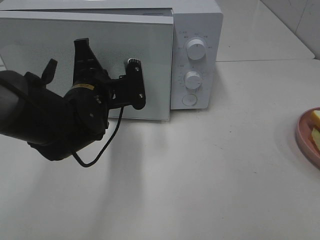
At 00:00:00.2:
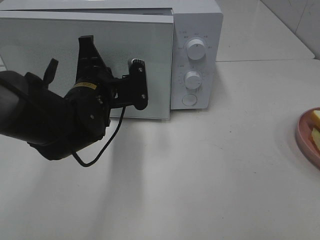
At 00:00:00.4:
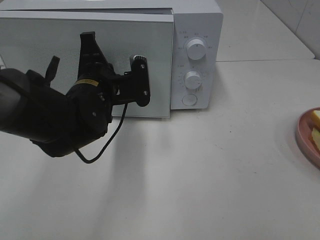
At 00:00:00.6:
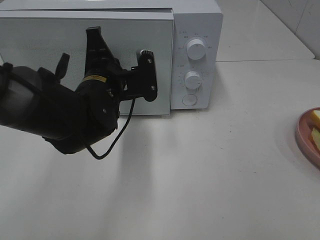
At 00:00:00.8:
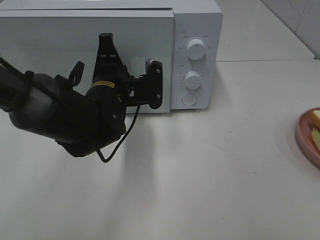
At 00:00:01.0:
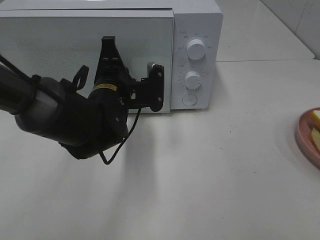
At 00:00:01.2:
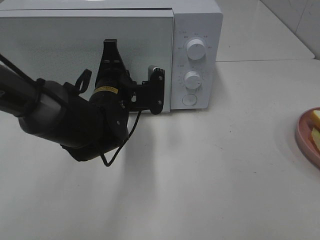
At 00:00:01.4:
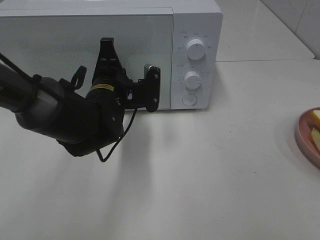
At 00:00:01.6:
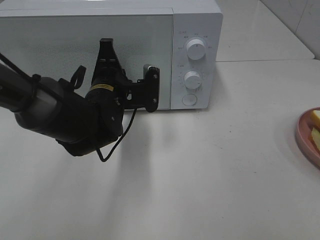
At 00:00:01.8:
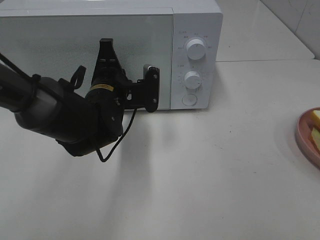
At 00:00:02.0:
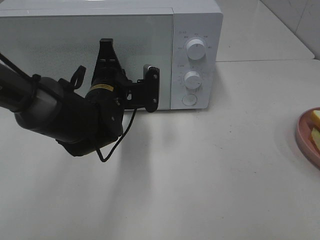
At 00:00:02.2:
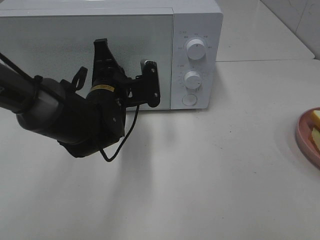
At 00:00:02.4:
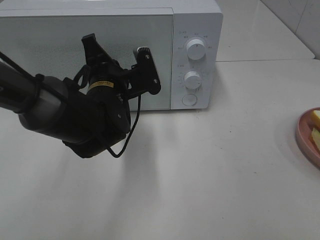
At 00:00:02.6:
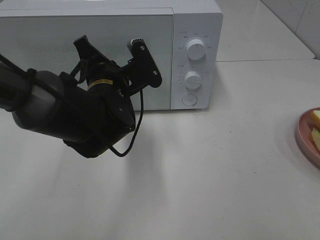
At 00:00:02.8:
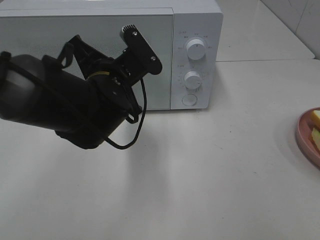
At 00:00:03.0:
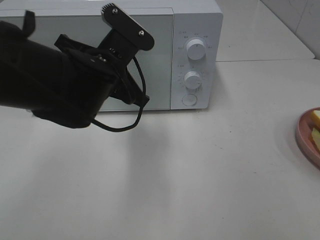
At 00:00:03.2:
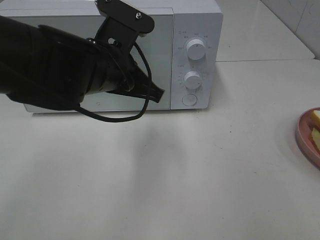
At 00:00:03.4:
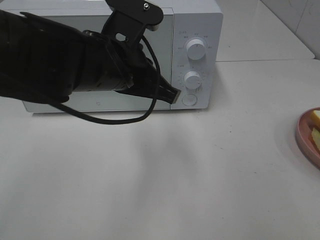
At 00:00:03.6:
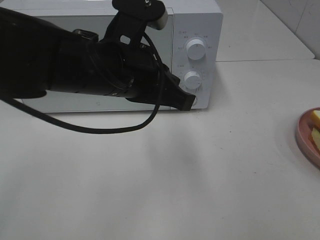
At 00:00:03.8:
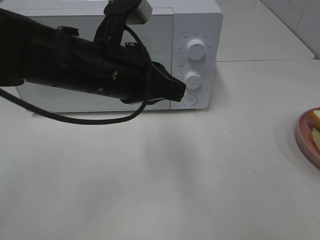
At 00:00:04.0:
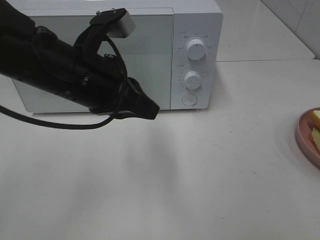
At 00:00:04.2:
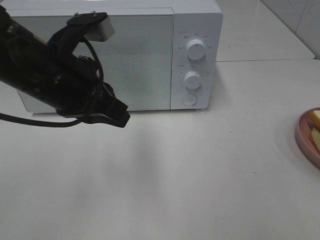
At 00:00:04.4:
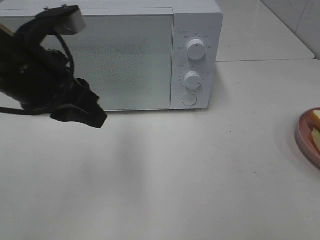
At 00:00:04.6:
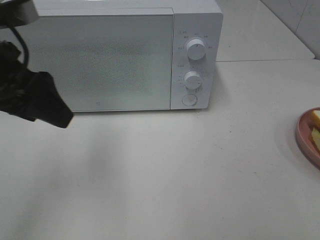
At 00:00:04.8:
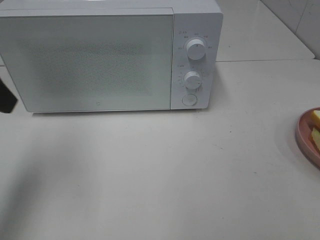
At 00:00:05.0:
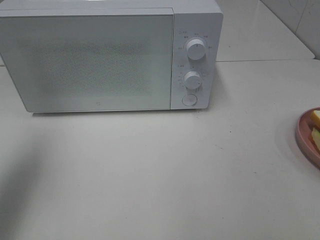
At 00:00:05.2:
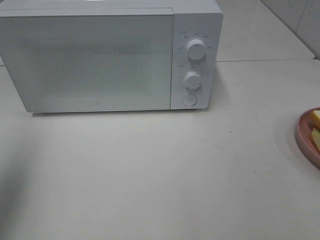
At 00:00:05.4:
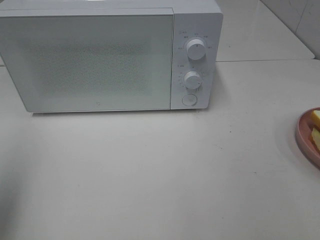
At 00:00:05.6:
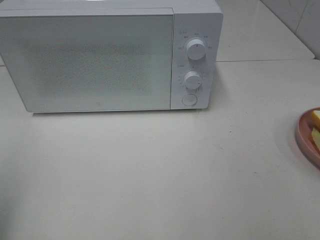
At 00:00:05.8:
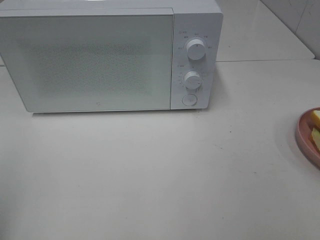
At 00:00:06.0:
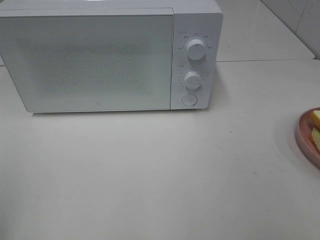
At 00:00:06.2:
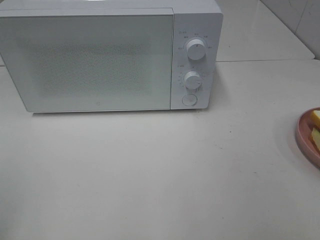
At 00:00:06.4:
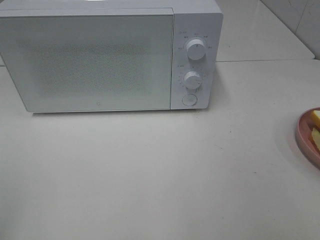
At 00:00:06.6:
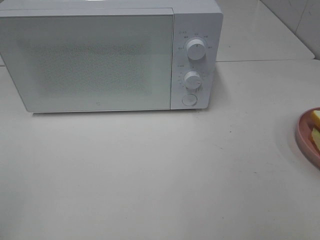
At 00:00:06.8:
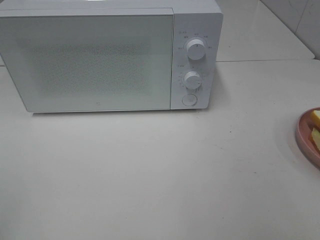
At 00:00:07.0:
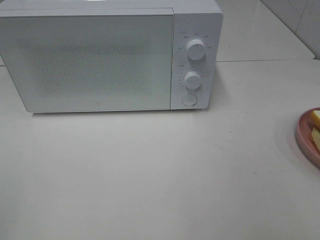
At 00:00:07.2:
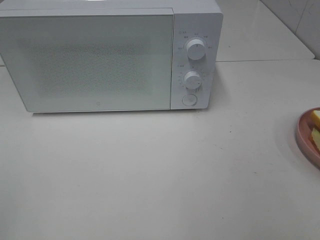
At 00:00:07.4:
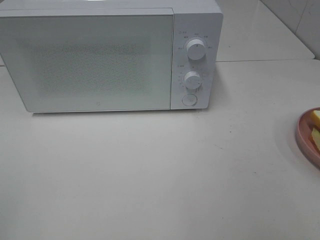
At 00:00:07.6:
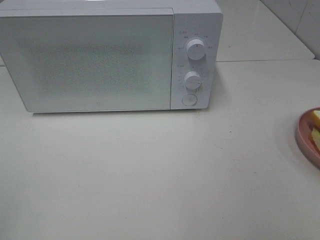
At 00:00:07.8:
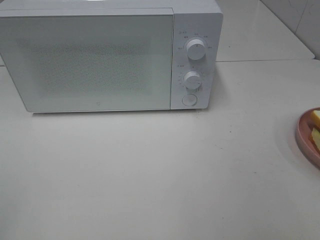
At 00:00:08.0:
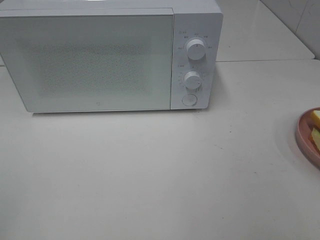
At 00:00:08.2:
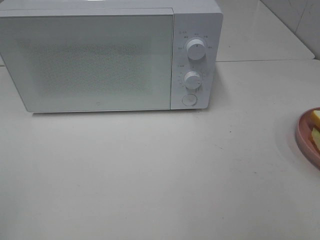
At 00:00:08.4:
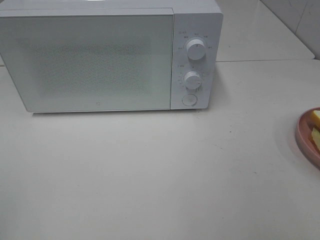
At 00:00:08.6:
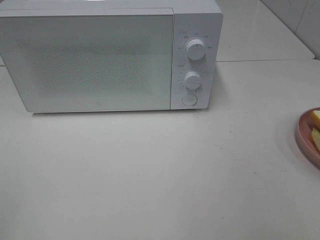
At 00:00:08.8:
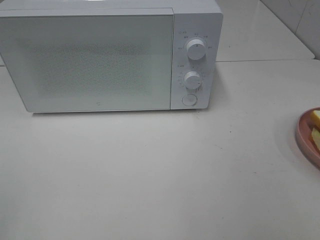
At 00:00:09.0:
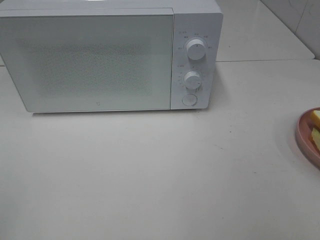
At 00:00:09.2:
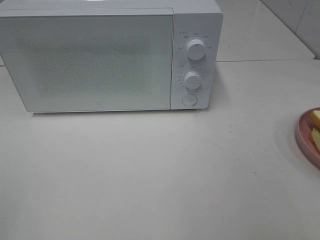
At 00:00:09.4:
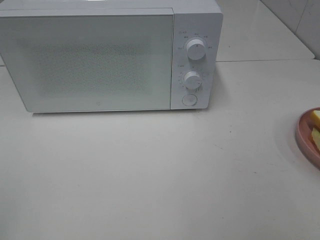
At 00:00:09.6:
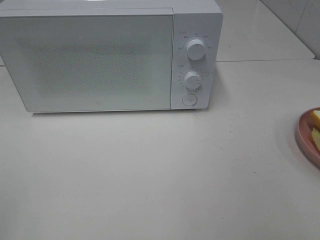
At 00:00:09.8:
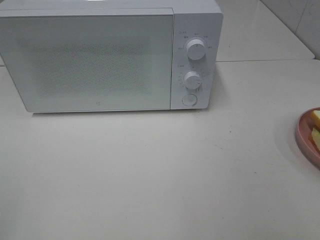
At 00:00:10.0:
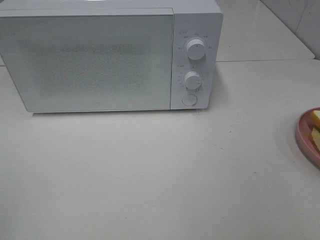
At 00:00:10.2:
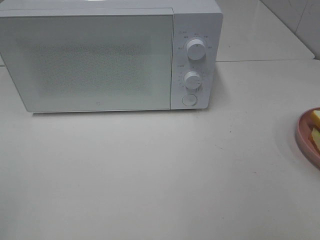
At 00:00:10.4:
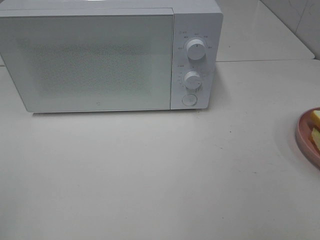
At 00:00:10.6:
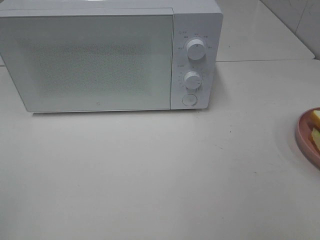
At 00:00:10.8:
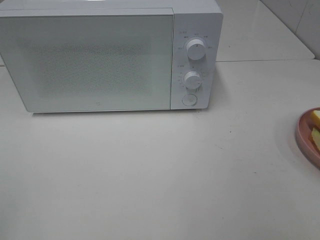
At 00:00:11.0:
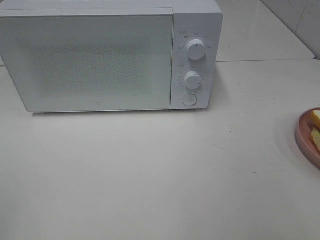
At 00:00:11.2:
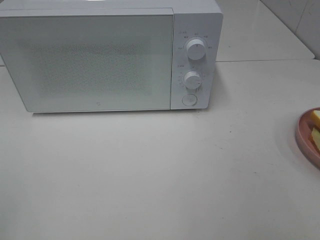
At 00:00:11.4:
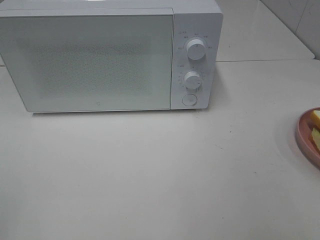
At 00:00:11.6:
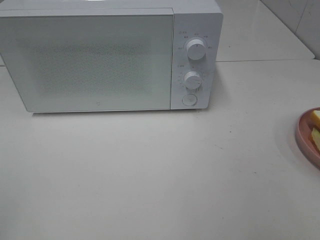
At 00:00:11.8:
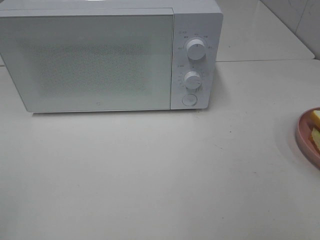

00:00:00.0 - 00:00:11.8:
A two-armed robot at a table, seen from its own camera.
Task of the whole recording: Heat Sandwich.
Step, 00:00:00.0 - 00:00:04.4: Left hand: close the microwave door.
00:00:00.0 - 00:00:01.4: The grippers stay close to where they were, moving slightly.
00:00:01.4 - 00:00:03.0: The left gripper heads upward, covering approximately 5 cm.
00:00:03.0 - 00:00:04.4: The left gripper travels to the left and upward by about 10 cm, and opens.
00:00:04.4 - 00:00:06.0: The left gripper heads backward and to the left, covering about 25 cm, and opens its fingers.
00:00:07.4 - 00:00:11.8: Neither gripper changes place.
